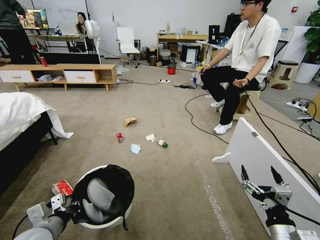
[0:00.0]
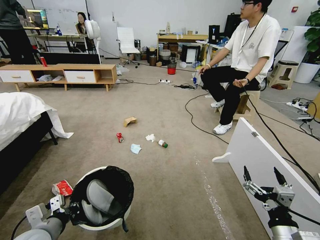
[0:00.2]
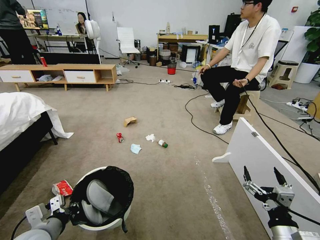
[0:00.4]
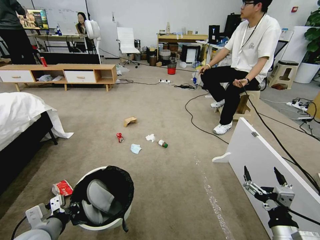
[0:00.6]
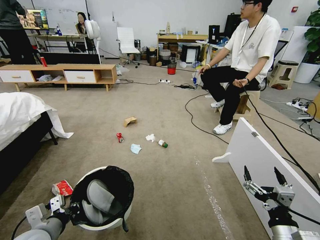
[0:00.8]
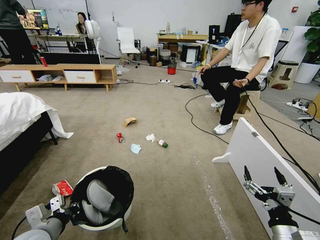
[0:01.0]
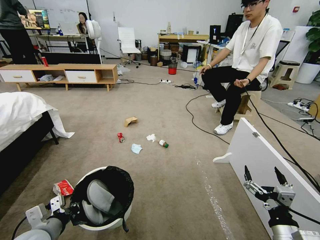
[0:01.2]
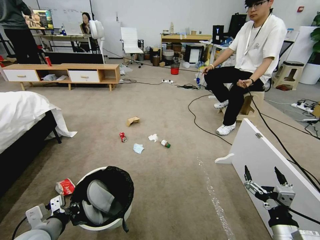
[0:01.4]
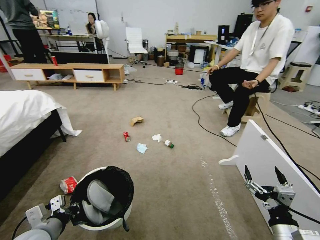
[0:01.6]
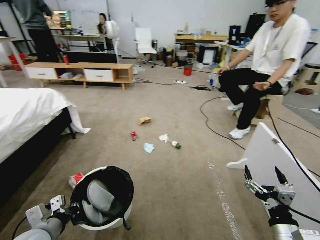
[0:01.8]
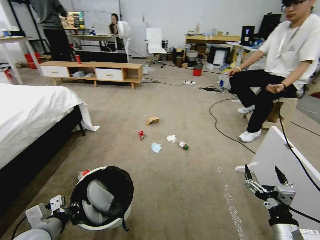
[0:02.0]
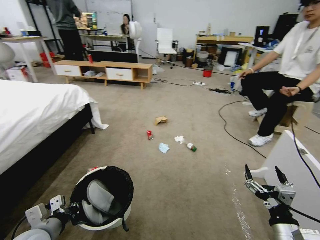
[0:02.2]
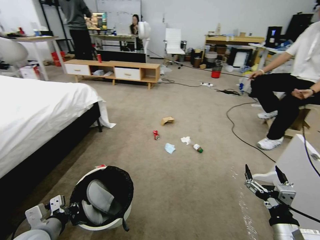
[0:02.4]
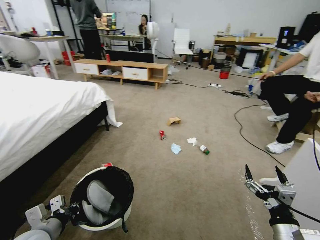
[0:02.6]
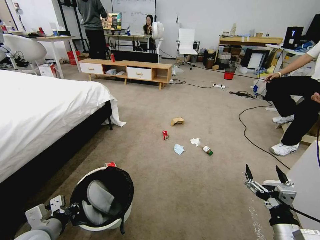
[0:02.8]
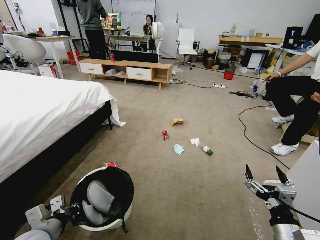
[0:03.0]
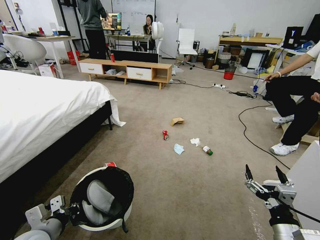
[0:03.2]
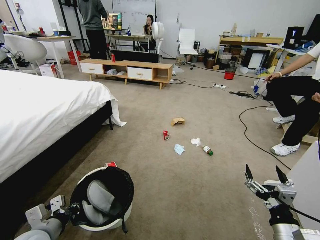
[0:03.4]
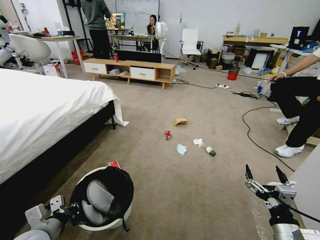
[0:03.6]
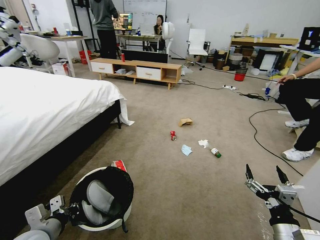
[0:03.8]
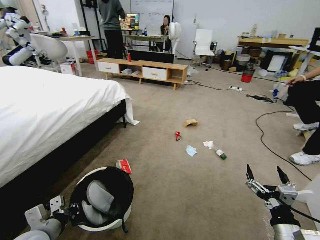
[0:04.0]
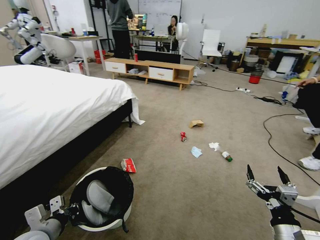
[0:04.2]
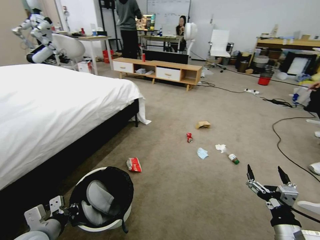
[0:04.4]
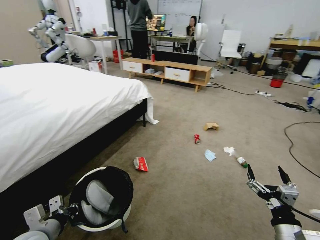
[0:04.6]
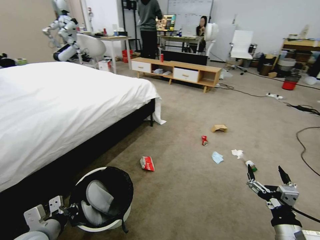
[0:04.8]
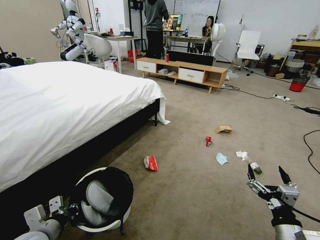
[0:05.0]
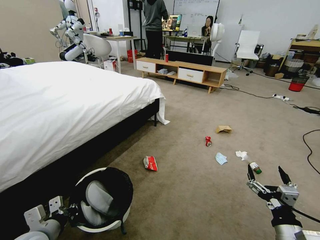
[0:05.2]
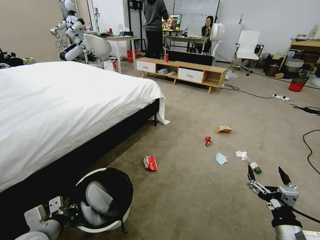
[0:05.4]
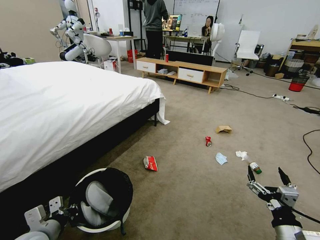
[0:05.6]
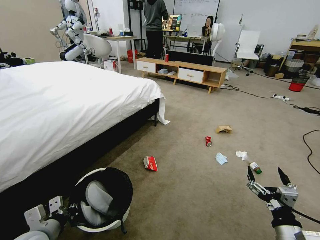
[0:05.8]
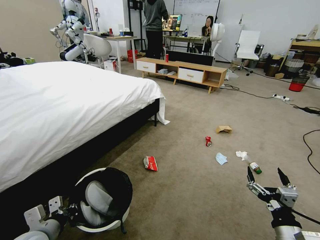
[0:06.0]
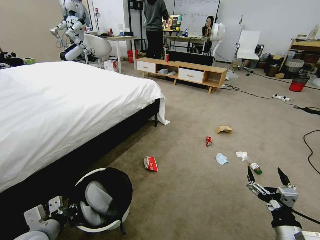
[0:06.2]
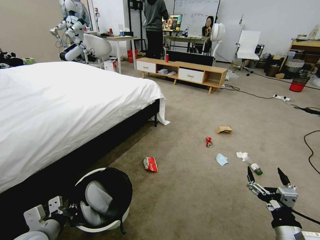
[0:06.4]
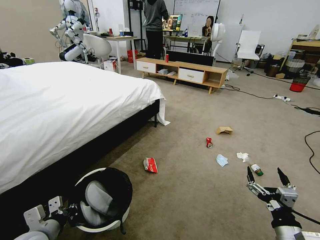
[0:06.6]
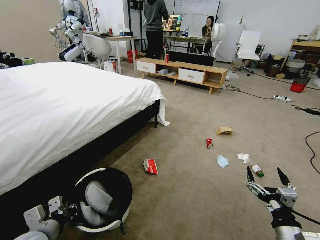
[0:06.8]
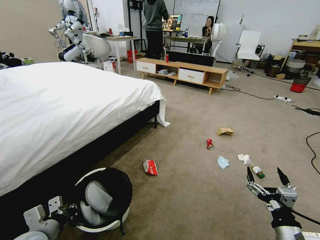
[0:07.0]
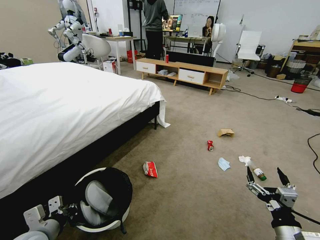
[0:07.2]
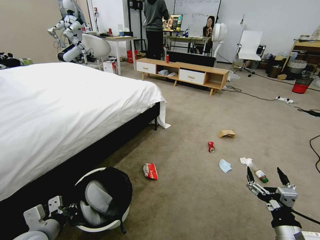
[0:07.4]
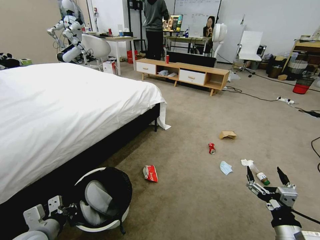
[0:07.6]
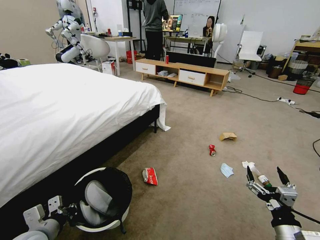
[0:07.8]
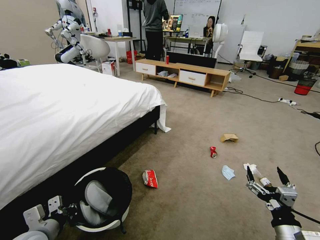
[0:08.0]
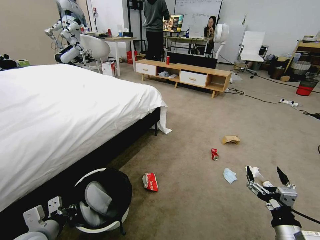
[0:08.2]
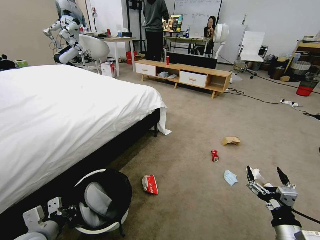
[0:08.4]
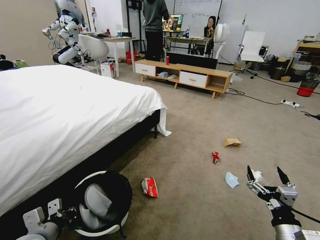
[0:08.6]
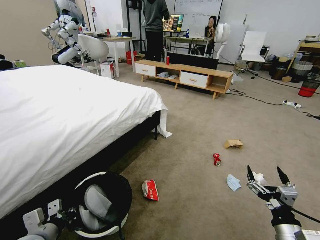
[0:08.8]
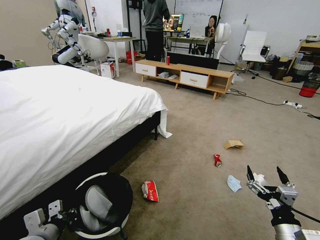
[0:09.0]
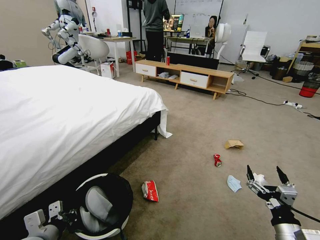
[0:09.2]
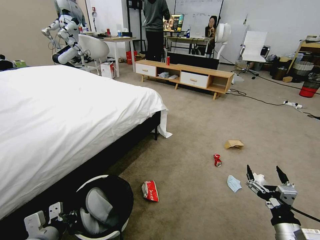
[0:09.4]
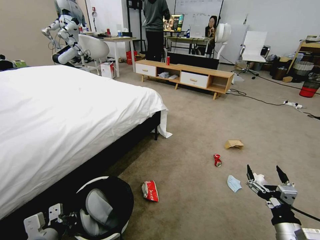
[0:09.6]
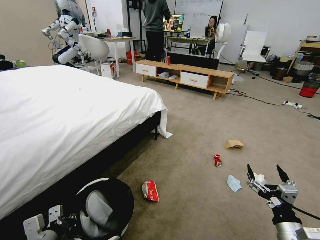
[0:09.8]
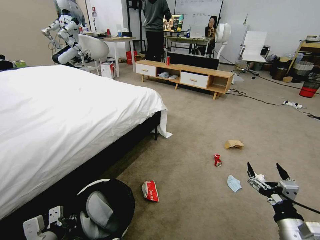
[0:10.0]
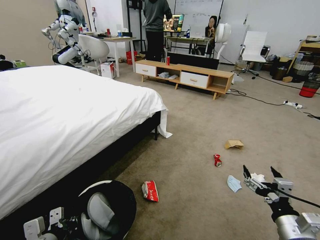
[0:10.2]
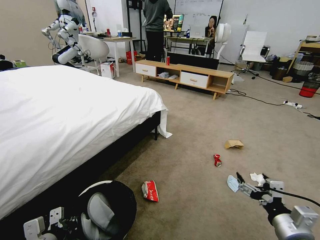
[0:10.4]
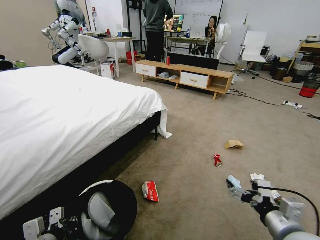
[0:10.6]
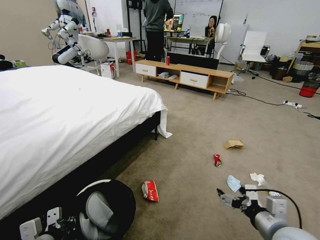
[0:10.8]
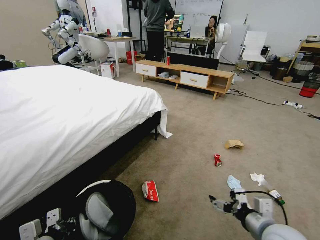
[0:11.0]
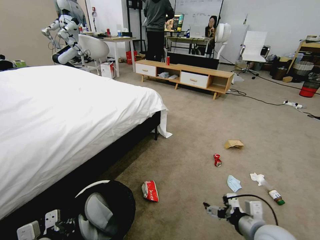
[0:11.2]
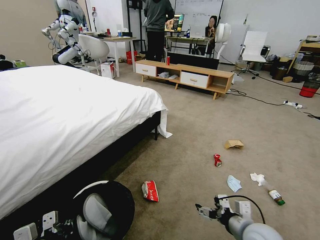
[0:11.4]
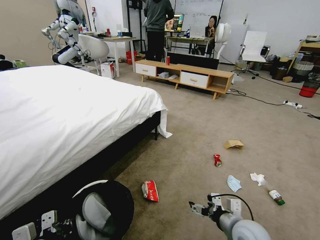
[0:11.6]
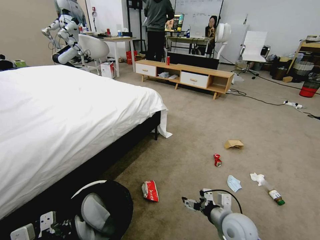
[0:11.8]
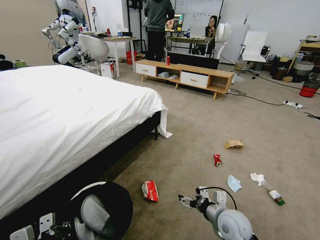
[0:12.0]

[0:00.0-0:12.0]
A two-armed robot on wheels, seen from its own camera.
Task of the whole recording: Pick up the trash bin, then pick up the garbage from the floor and place it into the trash bin.
0:06.0 to 0:07.6: Both grippers stay about where they are.
0:09.0 to 0:10.4: The right gripper shifts about 5 cm upward.
0:10.4 to 0:12.0: The right gripper is displaced forward, to the left and downward by approximately 20 cm.

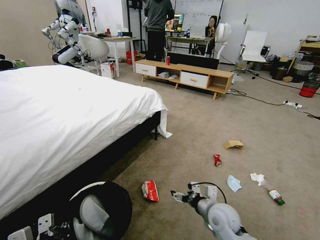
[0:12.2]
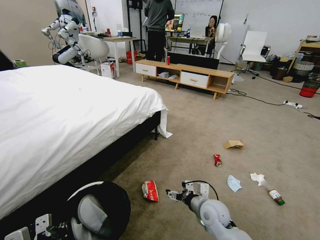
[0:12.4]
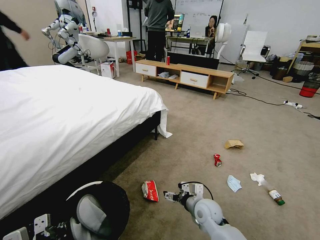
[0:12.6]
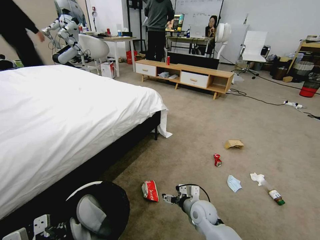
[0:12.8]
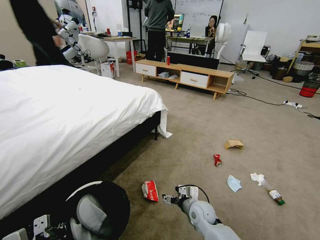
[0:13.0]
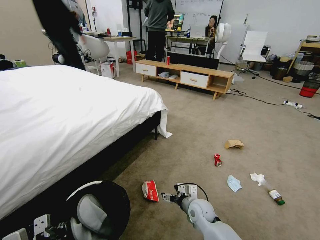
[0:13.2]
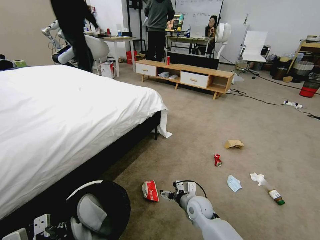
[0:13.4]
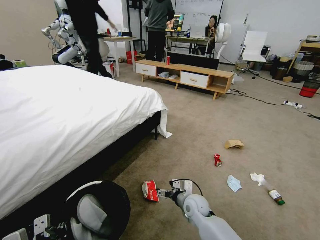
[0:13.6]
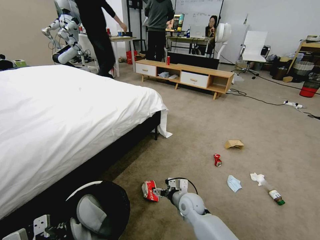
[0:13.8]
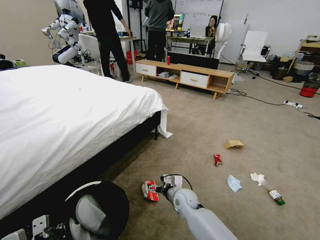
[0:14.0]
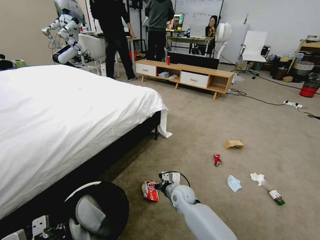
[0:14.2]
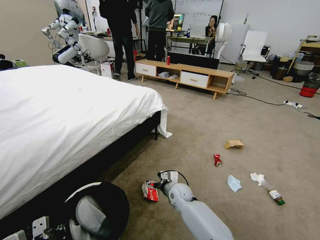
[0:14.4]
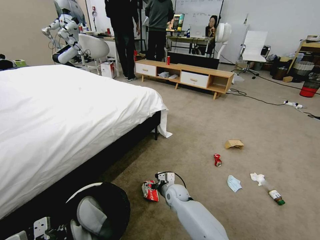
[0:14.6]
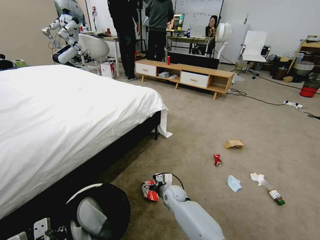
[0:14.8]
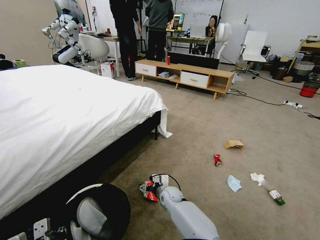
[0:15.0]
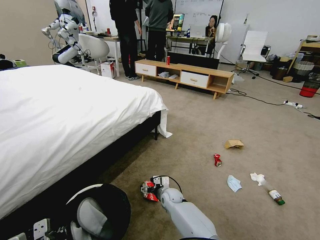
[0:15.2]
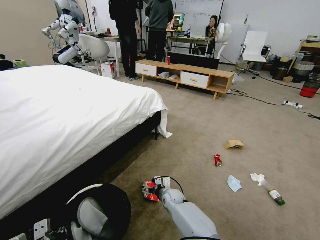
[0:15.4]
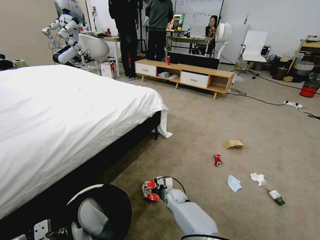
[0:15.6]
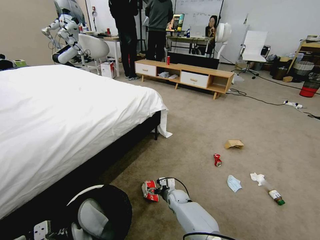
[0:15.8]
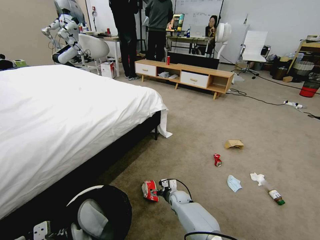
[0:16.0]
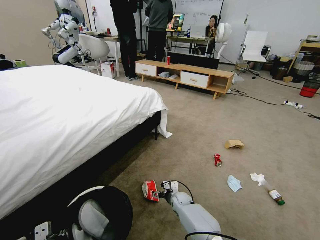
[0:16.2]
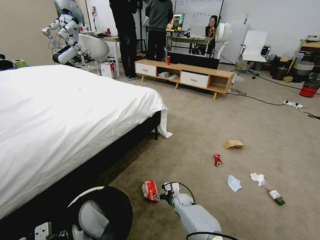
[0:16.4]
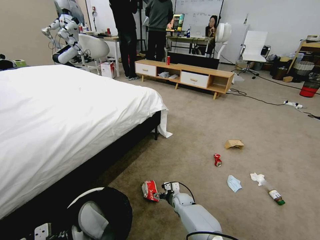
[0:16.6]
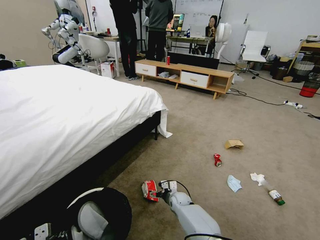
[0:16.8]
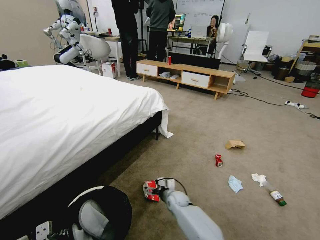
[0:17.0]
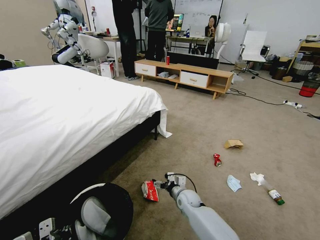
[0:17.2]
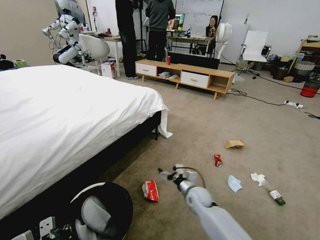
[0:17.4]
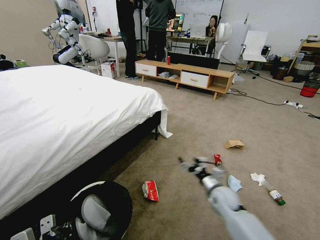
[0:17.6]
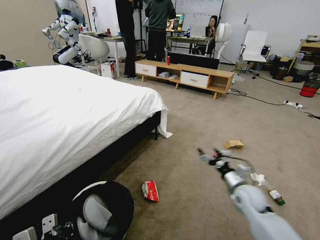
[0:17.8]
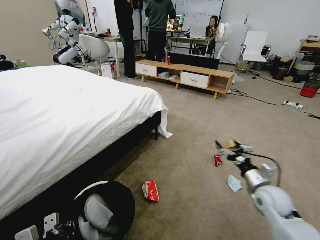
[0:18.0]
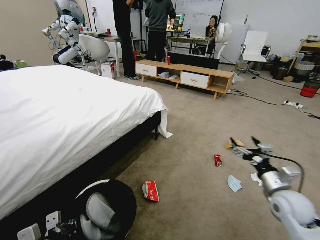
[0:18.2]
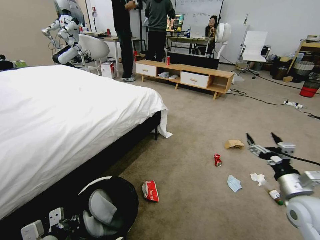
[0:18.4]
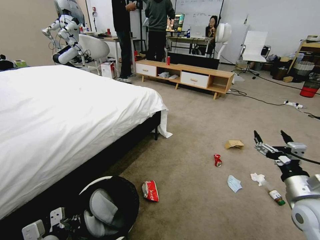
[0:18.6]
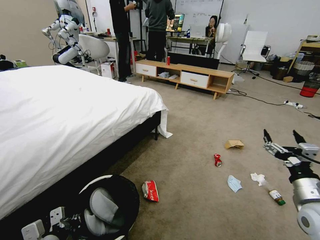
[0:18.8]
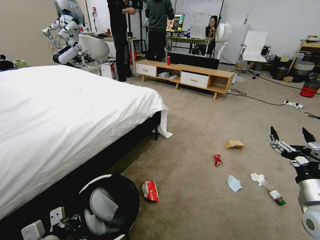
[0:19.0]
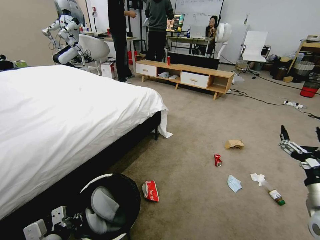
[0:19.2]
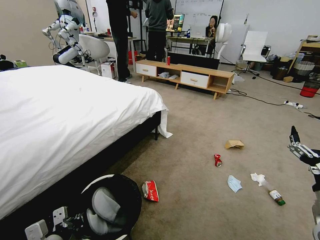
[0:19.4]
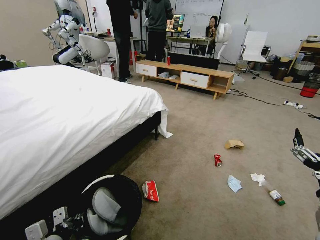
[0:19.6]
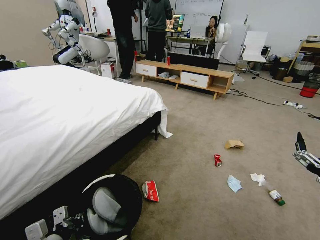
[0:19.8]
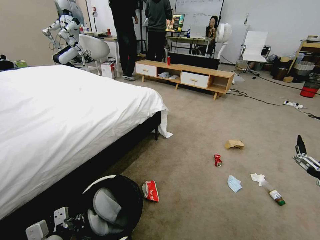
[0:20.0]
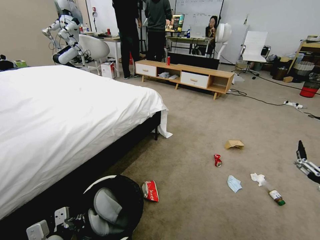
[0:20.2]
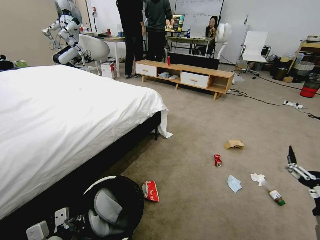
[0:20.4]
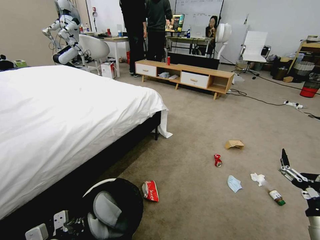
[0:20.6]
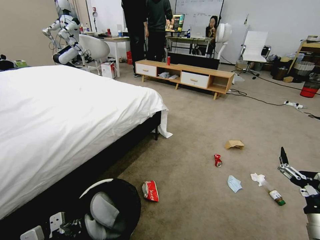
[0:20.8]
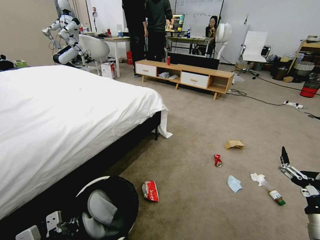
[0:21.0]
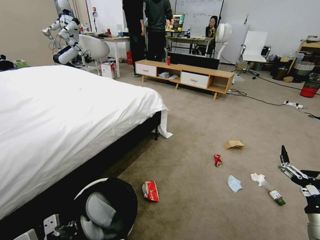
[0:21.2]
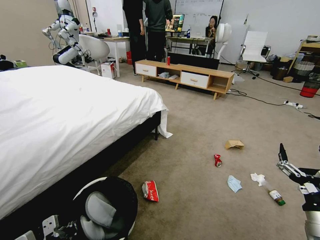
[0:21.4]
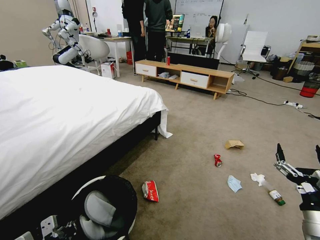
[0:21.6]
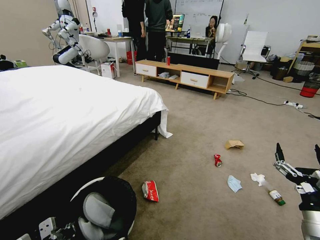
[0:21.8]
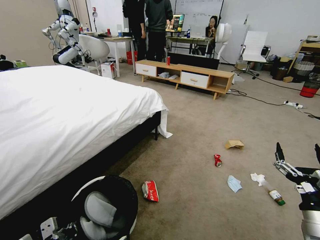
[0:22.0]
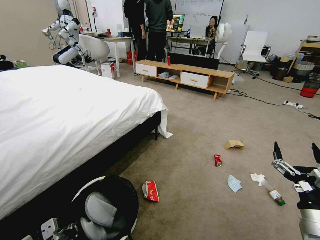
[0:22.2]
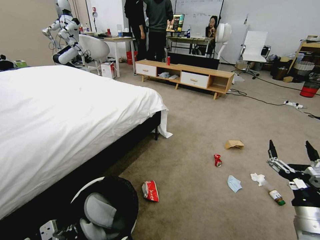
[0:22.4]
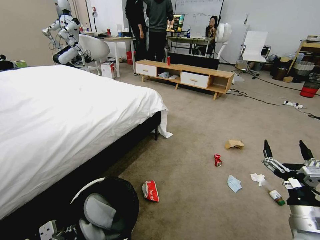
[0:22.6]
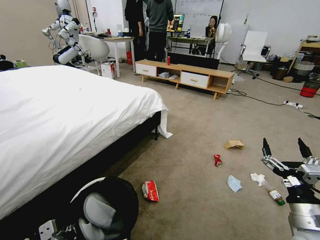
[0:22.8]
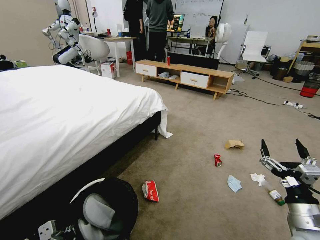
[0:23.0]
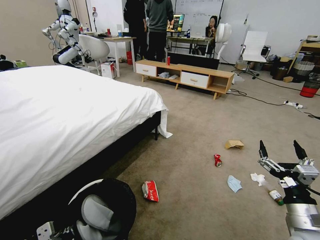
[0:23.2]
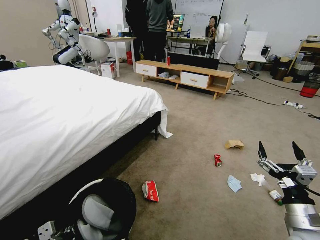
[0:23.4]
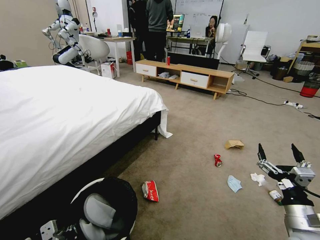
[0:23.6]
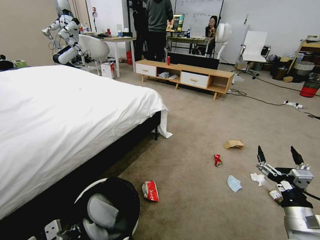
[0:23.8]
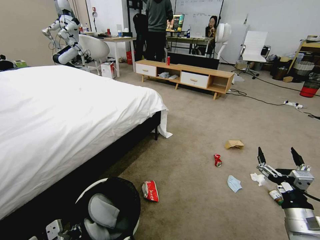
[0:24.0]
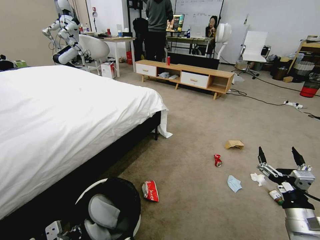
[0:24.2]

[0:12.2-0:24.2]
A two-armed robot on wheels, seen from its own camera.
Task of the whole recording: Pick up the trash bin, then pick up the garbage from the floor and place it into the trash bin.
0:12.2 to 0:13.8: The right gripper moves to the left, forward and downward, roughly 15 cm.
0:13.8 to 0:15.2: The right gripper is displaced downward, to the left and forward by approximately 10 cm.
0:15.2 to 0:16.6: The right gripper heads to the right and downward, covering approximately 10 cm.
0:16.6 to 0:18.2: The right gripper shifts some 40 cm to the right, upward and backward.
0:18.2 to 0:19.8: The right gripper shifts roughly 15 cm backward and upward.
0:19.8 to 0:21.2: The grippers stay close to where they were, moving slightly.
0:21.2 to 0:24.2: The grippers stay close to where they were, moving slightly.
